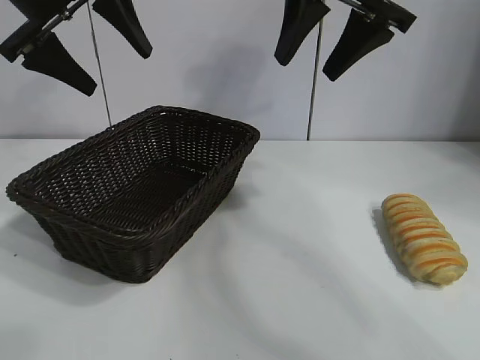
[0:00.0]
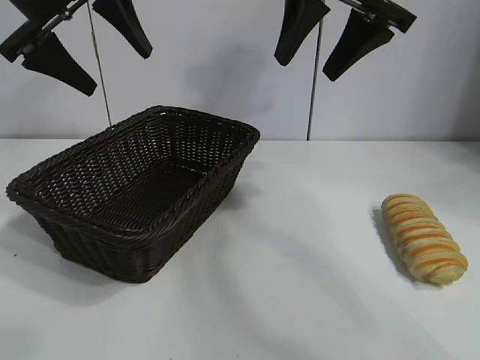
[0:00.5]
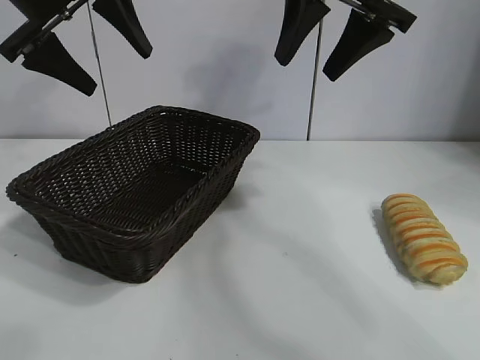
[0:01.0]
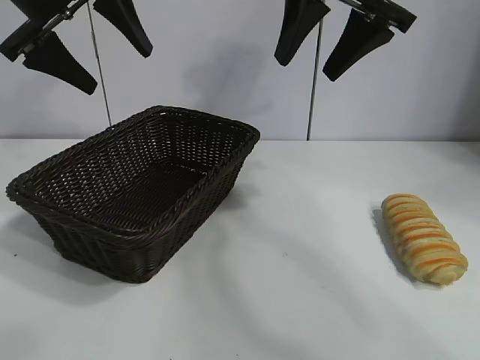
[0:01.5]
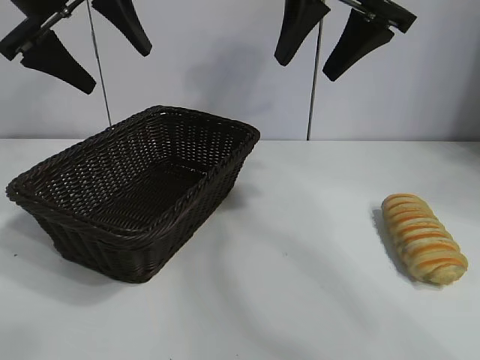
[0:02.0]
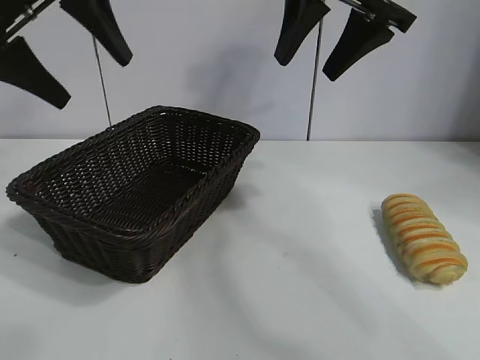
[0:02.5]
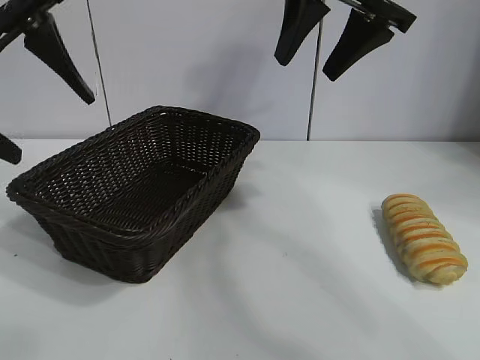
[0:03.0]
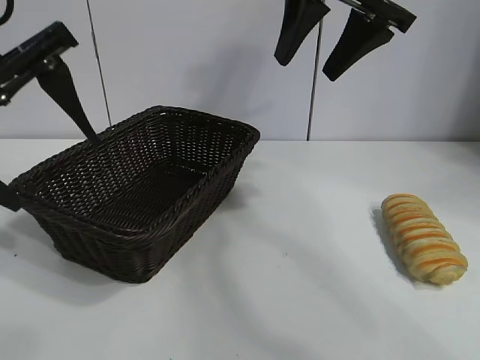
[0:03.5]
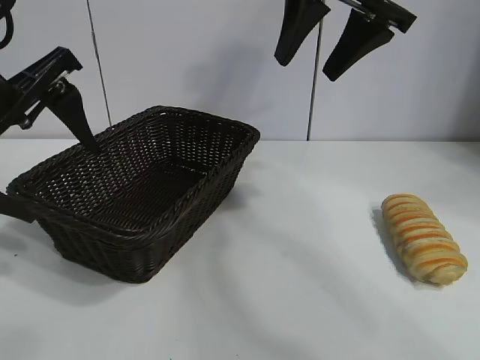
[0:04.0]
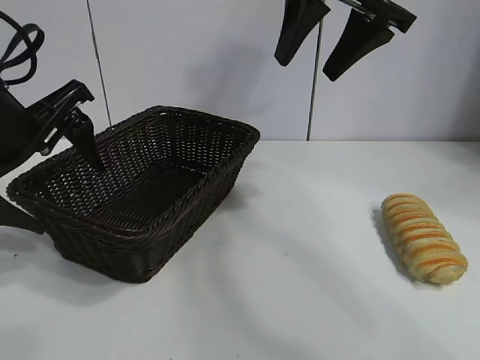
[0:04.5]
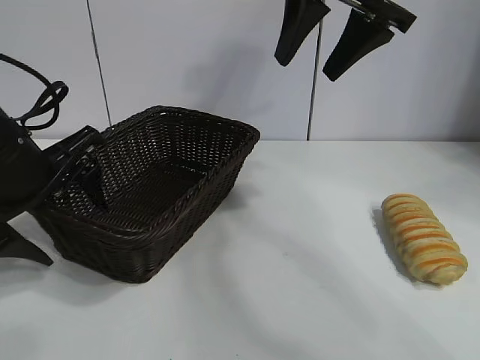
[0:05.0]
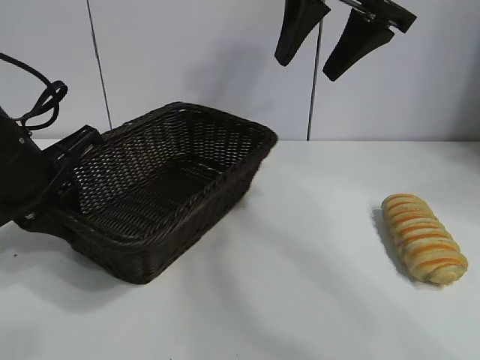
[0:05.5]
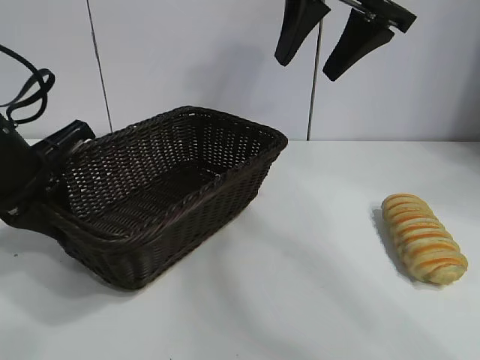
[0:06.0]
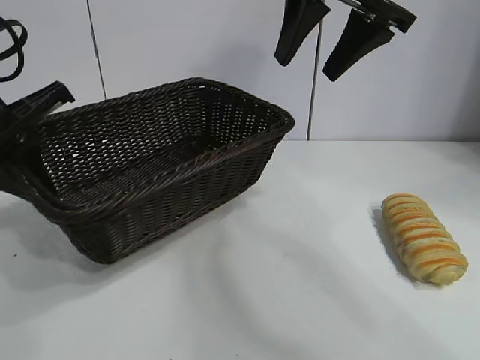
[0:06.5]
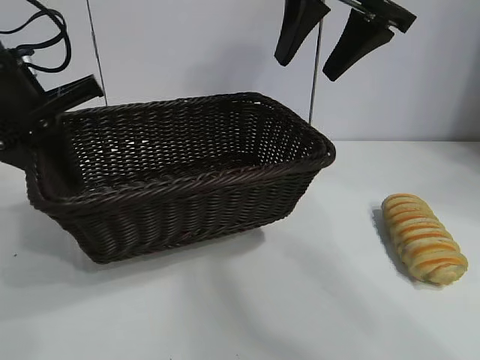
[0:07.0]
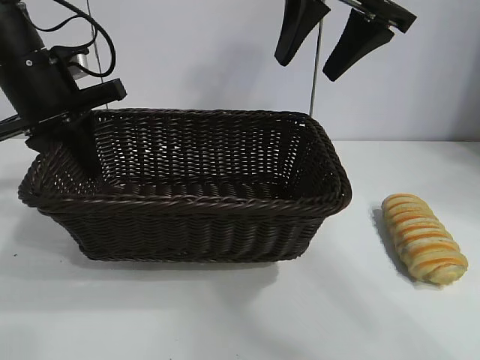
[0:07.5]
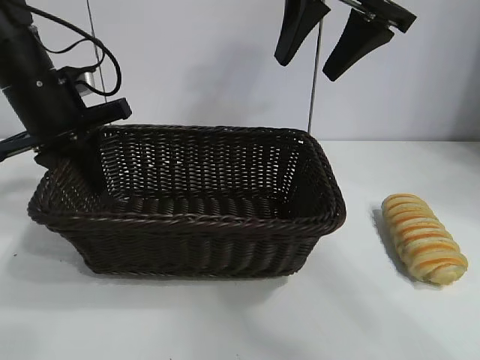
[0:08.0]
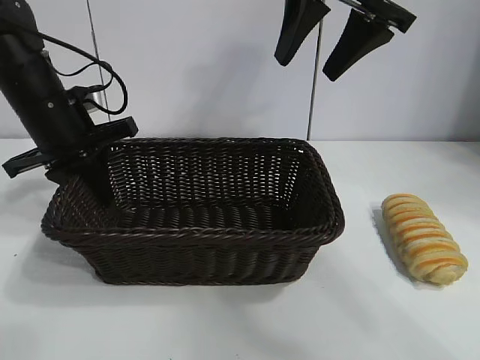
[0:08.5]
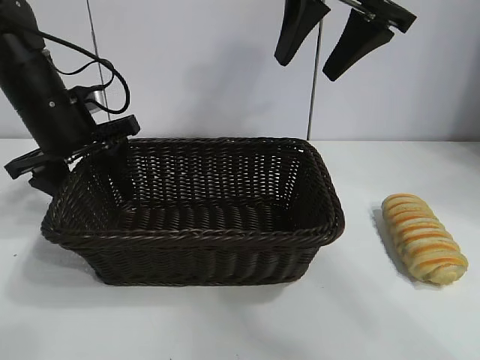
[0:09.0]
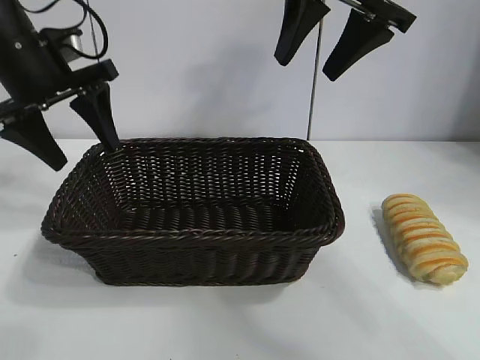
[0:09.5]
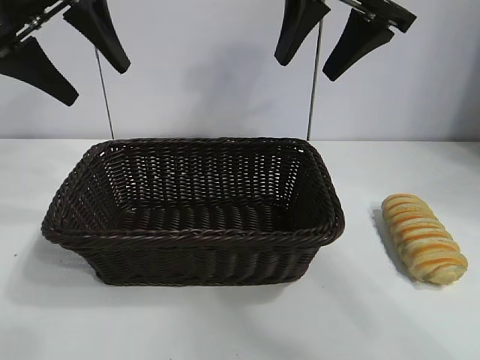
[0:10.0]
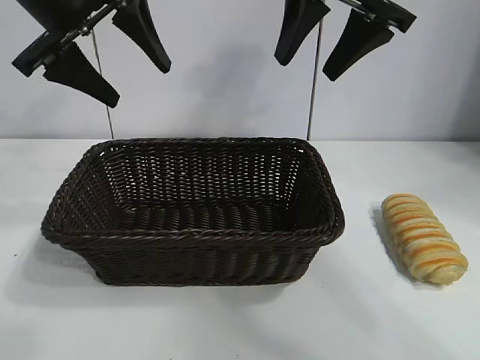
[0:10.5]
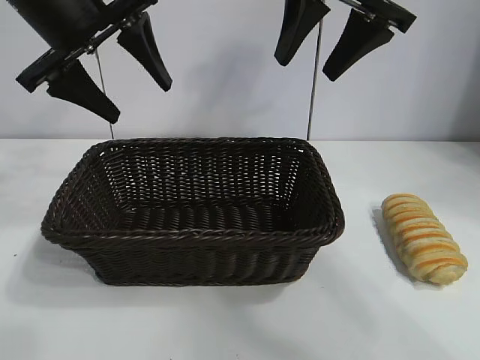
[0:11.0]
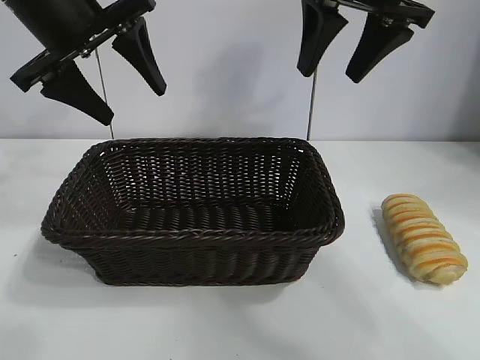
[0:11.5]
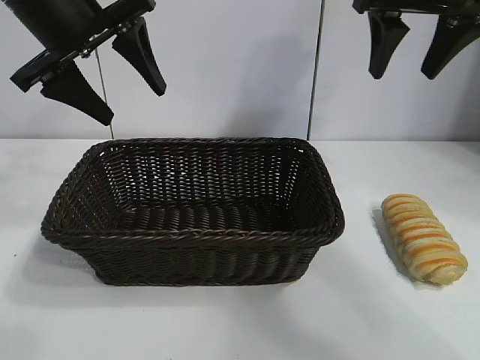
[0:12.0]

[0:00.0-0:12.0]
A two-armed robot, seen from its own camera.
Task of the whole recording: pick up the long bread and put it into the basket.
Step, 0:02.0 to 0:05.5: Grasp the basket with the left gripper.
Step, 0:06.0 to 0:09.0: Place the basket in the center of the table with the left gripper.

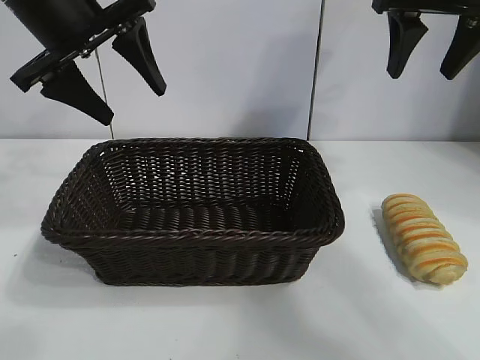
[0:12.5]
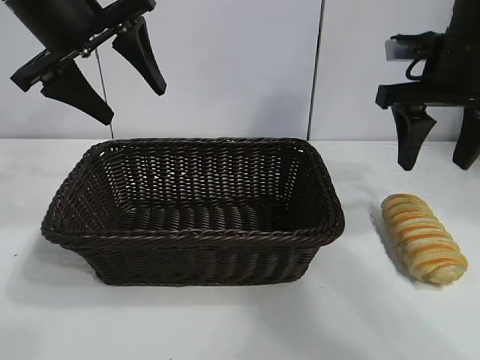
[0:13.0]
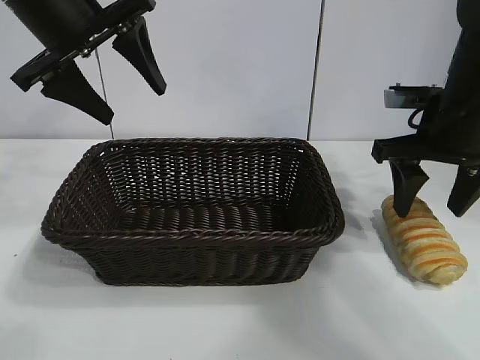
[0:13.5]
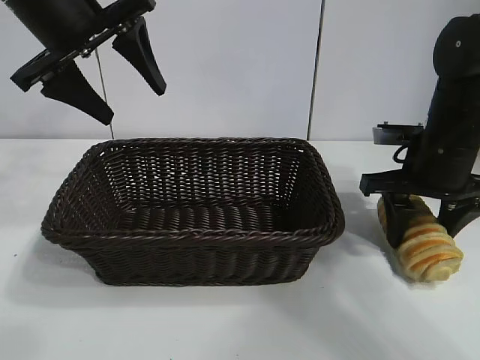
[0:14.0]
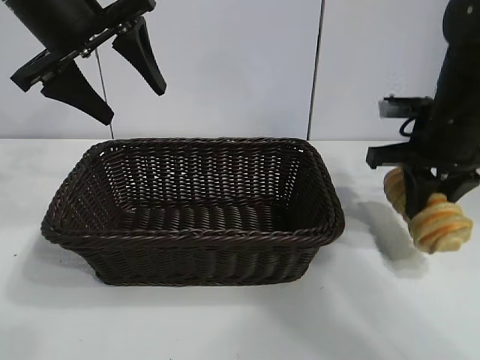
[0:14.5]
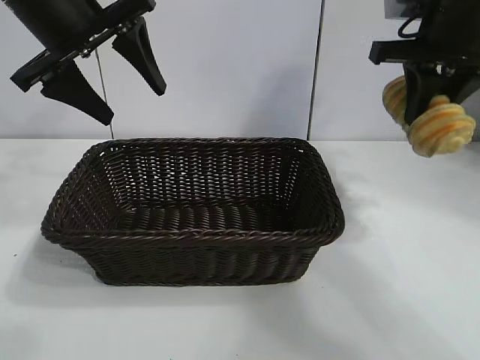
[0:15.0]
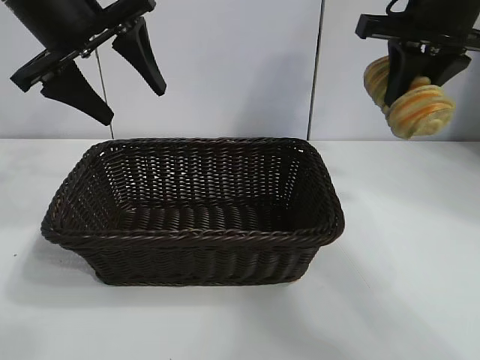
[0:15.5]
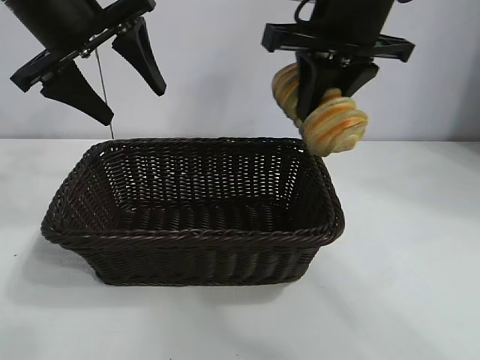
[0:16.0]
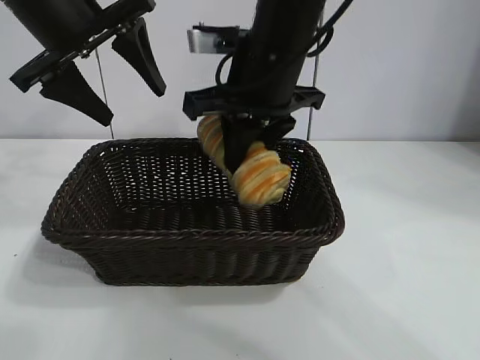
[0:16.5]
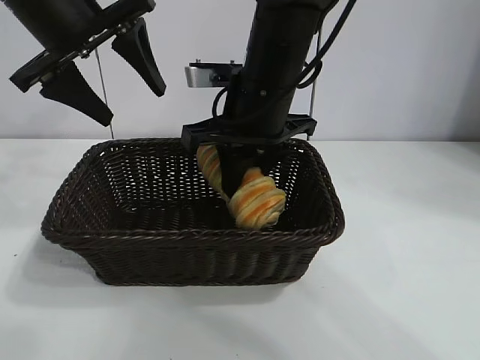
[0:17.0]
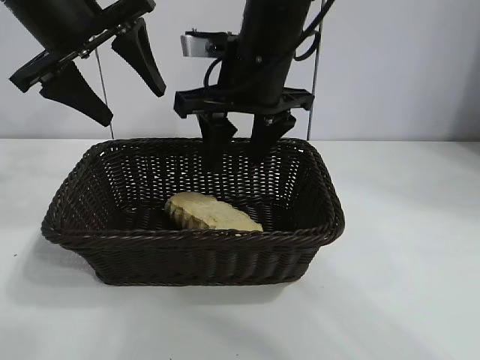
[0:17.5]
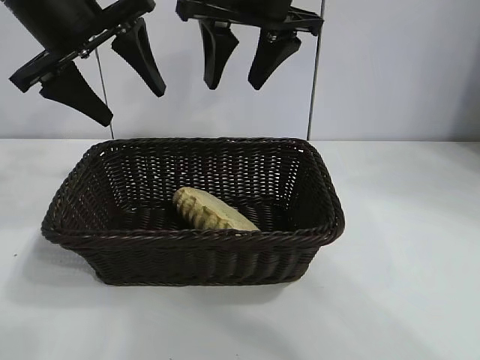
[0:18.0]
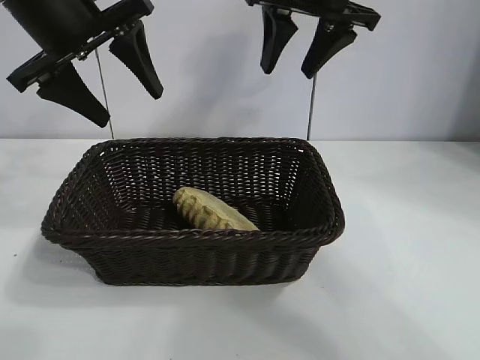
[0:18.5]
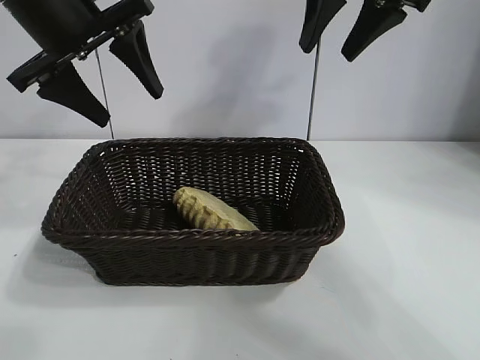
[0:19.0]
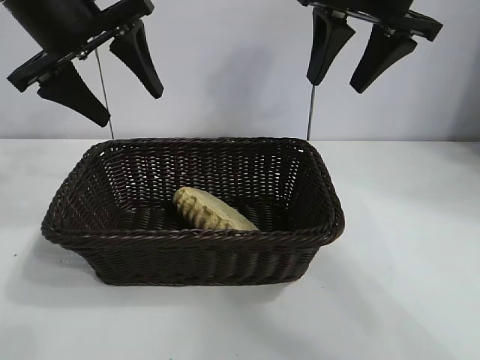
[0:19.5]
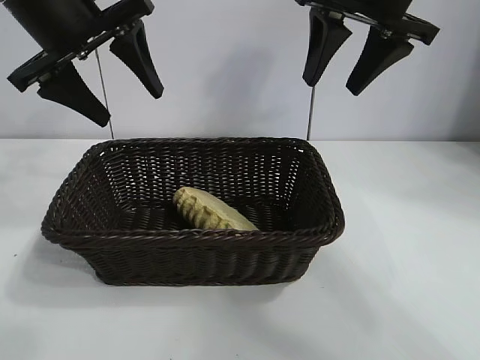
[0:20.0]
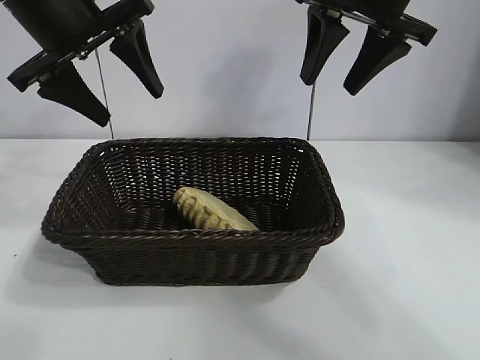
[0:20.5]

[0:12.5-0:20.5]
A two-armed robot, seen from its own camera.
Task of the whole recording: pick up the long bread and put it into the basket.
Step, 0:14.5 to 0:17.5: Place the long bread in the basket with right gripper.
